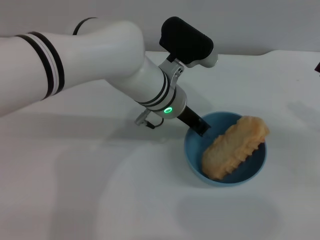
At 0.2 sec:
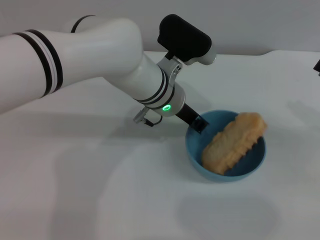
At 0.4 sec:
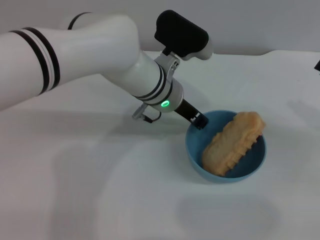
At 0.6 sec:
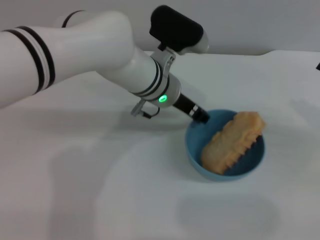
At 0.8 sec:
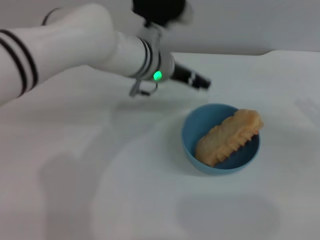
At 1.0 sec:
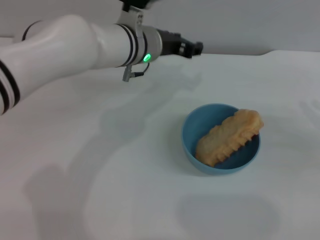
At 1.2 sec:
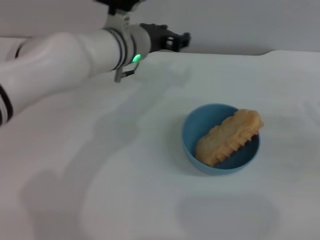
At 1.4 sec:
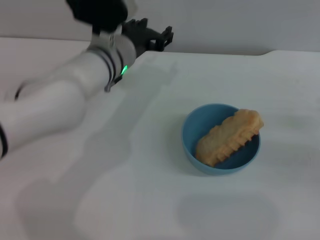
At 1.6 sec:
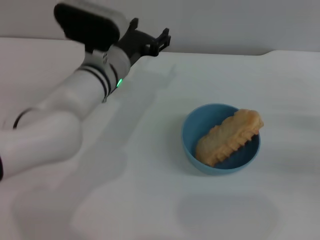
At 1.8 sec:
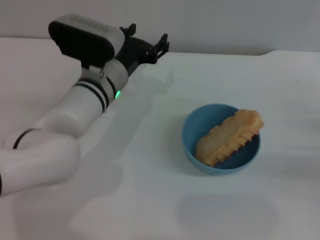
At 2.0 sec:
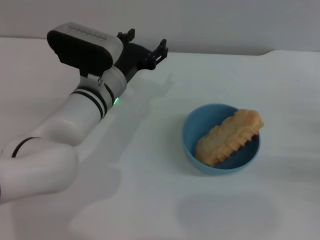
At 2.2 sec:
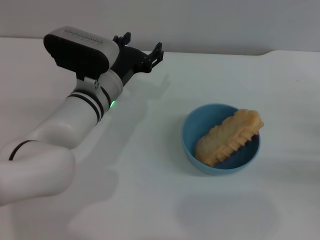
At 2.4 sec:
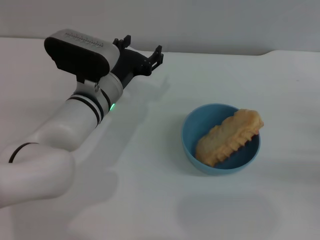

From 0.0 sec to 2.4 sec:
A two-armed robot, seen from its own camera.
Task of the whole recording: put the bread into the blue bowl and pour it out repeatedly.
From 0.0 sec to 1.2 sec: The left gripper goes some 5 cm to the left, and opens up.
From 1.2 sec to 2.4 sec: The left gripper moves downward and backward, about 10 cm. Meanwhile the right gripper changes place by about 5 cm.
